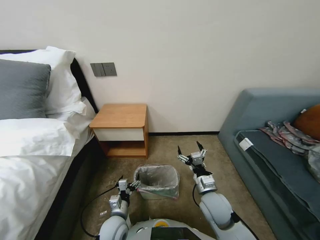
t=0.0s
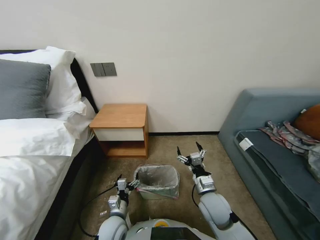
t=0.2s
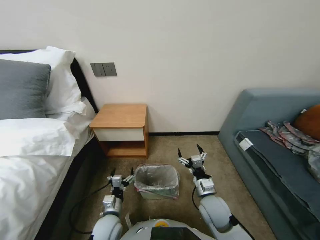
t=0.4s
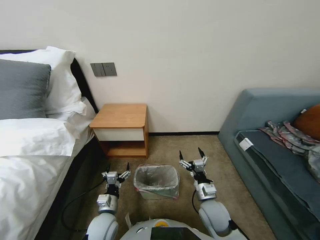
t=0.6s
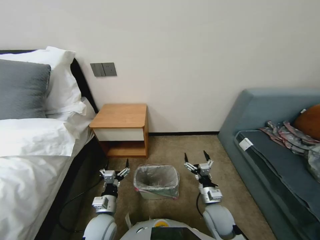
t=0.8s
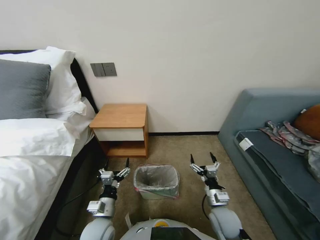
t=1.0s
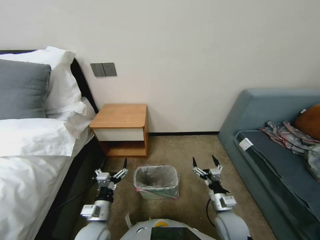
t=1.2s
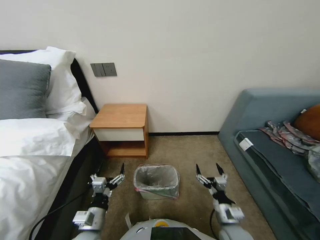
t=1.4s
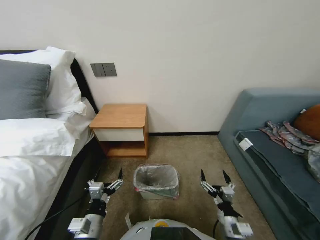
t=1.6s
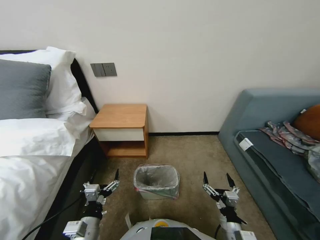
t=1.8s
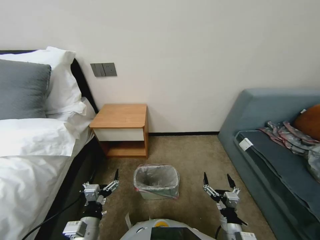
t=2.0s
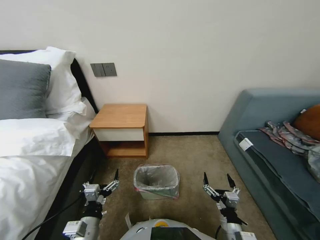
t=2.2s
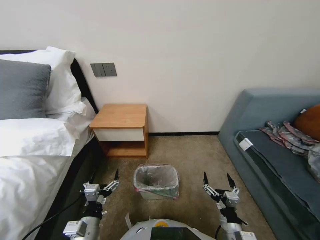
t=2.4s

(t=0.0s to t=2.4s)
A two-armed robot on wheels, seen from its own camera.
Task of the whole recording: Pick up the garbage bag from the table and place it over the trash can.
t=0.0s - t=1.2s: The right gripper goes some 10 cm downward and to the right. Meanwhile the left gripper goes some 5 cm upward.
t=1.2s - t=2.4s: The left gripper is displaced backward by some 5 cm. Meanwhile the right gripper is displaced backward by approximately 10 cm.
